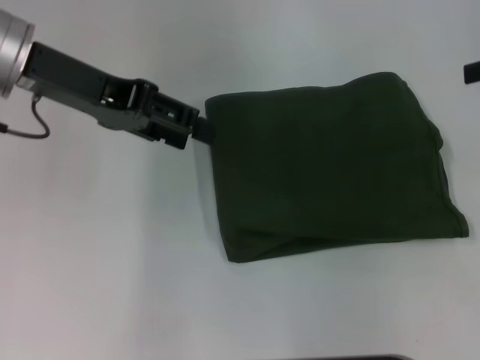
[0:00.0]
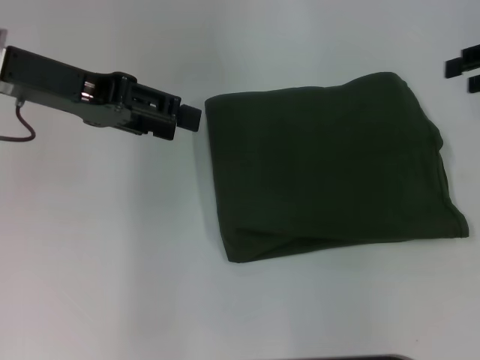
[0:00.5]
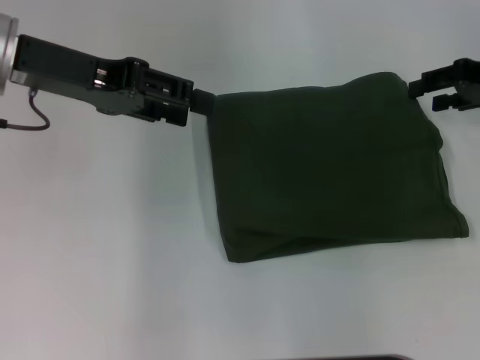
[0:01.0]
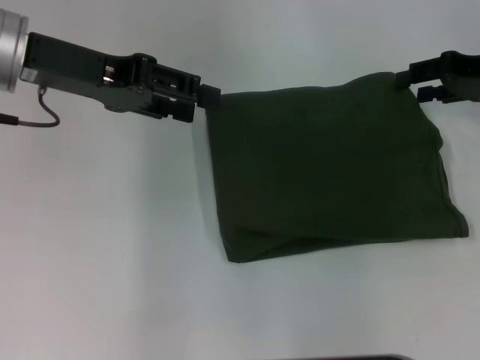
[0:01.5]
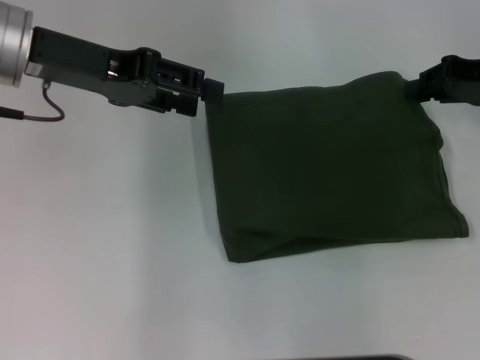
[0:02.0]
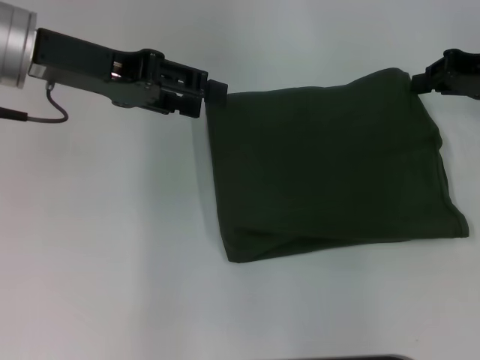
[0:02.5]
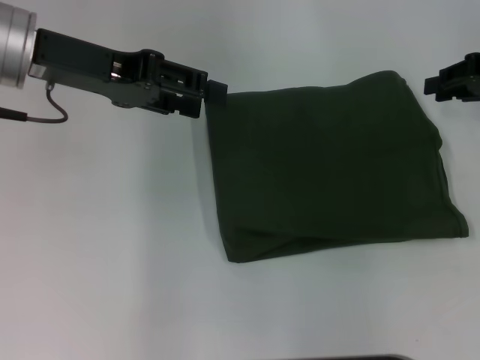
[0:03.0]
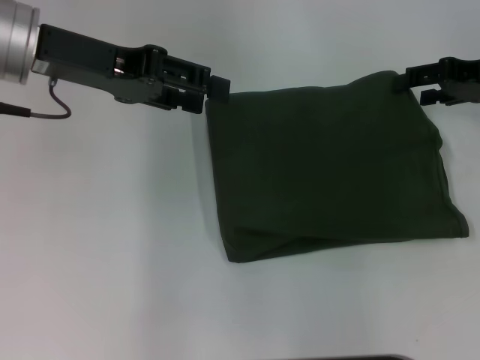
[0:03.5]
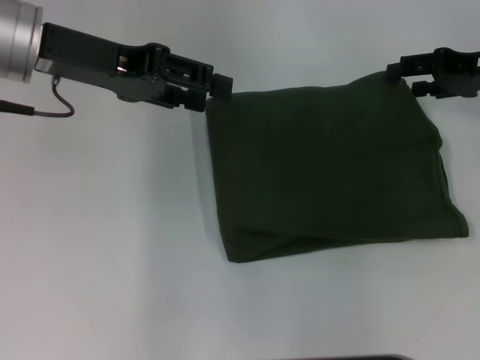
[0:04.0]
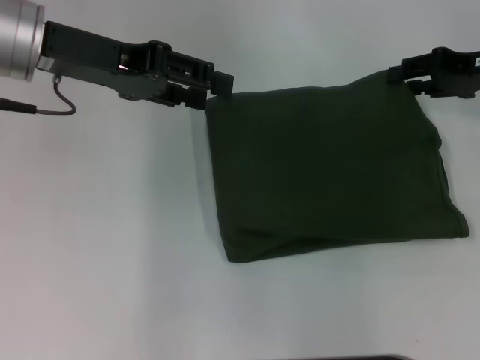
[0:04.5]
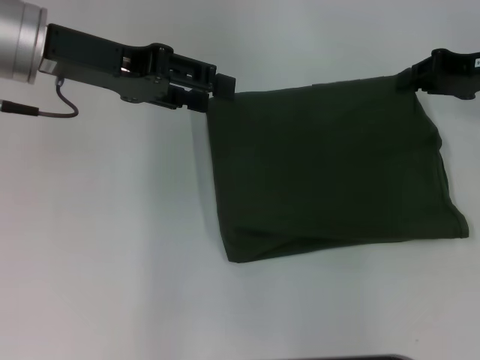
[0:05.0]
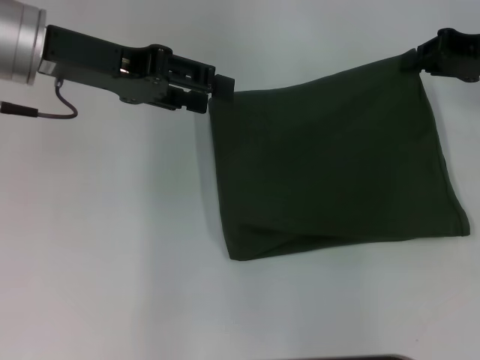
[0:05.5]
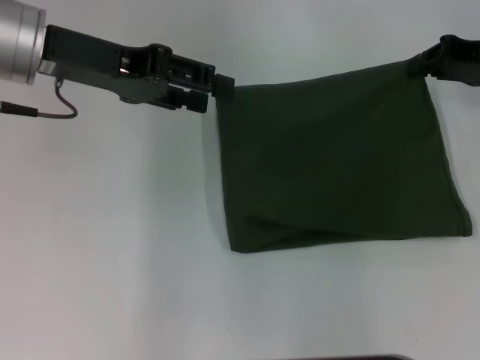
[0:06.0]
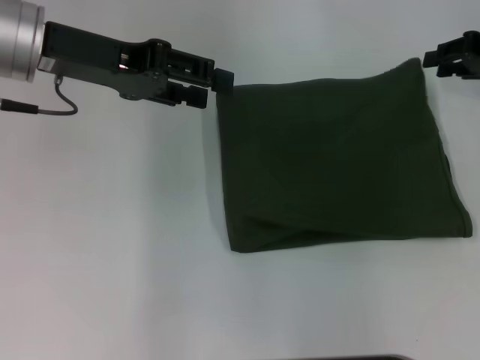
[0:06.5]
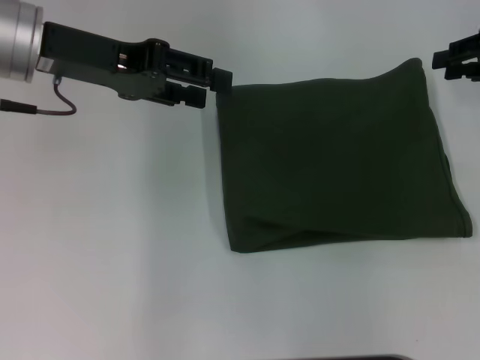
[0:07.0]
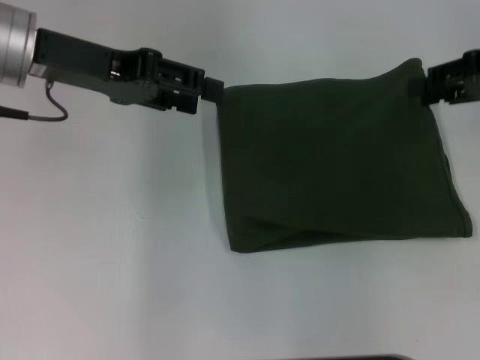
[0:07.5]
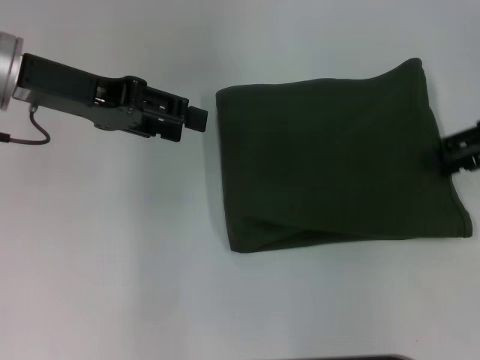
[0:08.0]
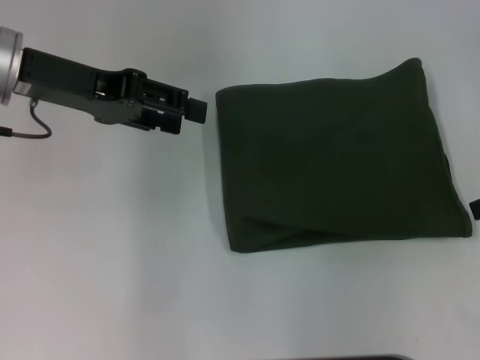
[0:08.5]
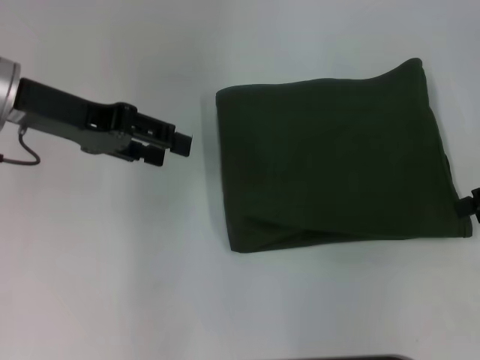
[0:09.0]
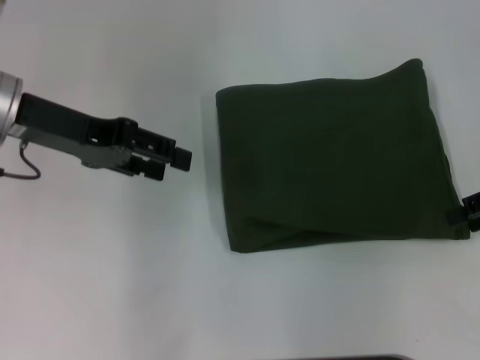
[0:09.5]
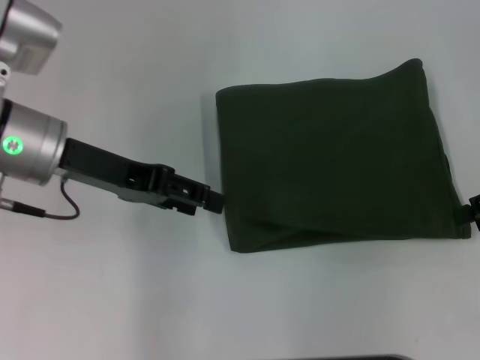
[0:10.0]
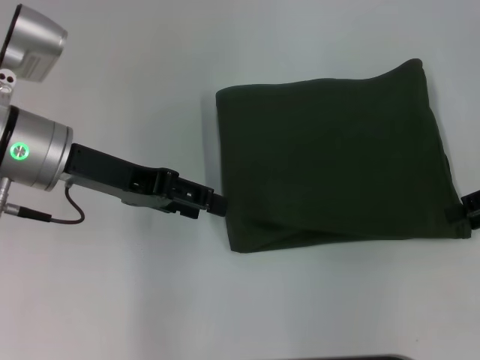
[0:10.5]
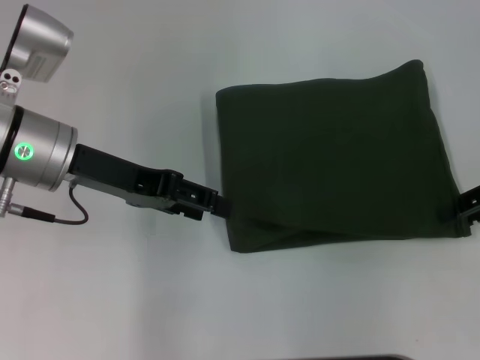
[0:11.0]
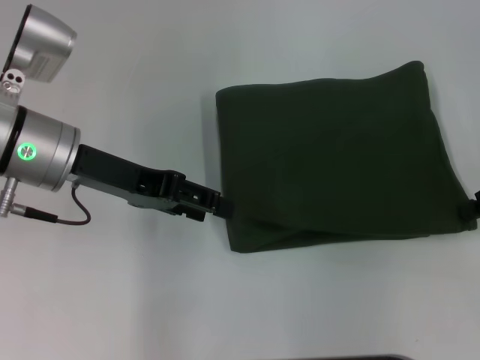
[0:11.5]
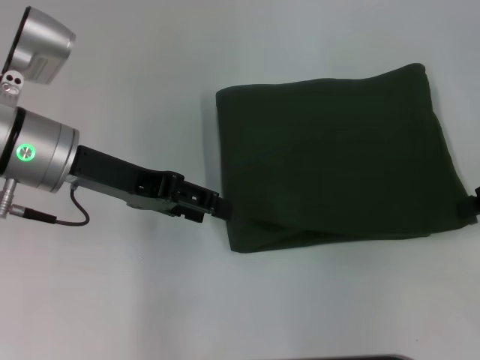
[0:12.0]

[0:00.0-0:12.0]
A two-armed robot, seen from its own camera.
Step, 0:00.0 to 0:02.5: Fold the clothes with your left hand.
0:00.0 to 0:02.0: The right gripper moves downward and to the left, about 10 cm.
0:02.0 to 0:04.0: The right gripper opens.
0:04.0 to 0:06.0: The right gripper closes.
0:06.0 to 0:08.0: The right gripper heads backward, covering some 5 cm, and opens up.
0:08.0 to 0:10.0: The left gripper moves about 5 cm.
0:10.0 to 0:12.0: The right gripper closes up.

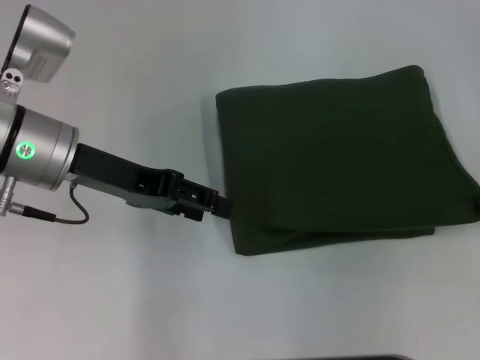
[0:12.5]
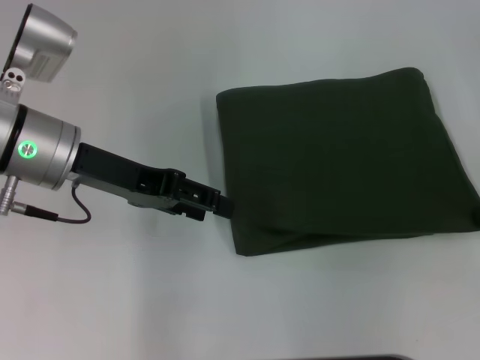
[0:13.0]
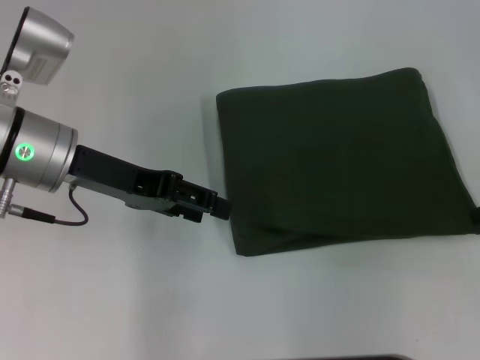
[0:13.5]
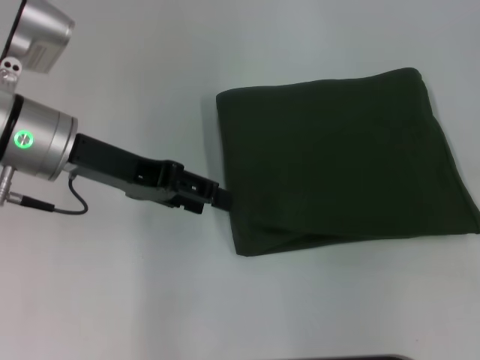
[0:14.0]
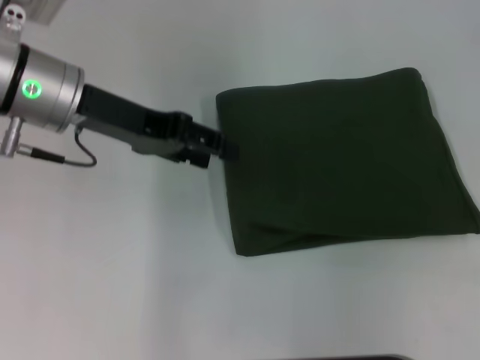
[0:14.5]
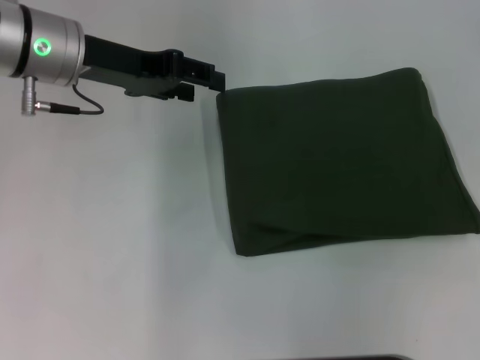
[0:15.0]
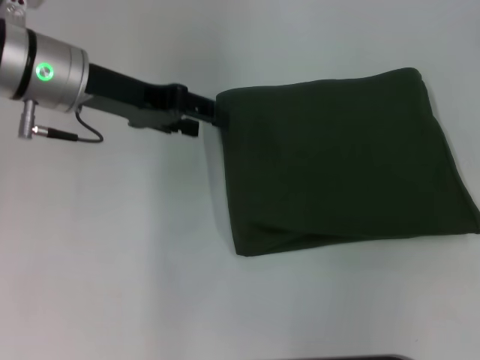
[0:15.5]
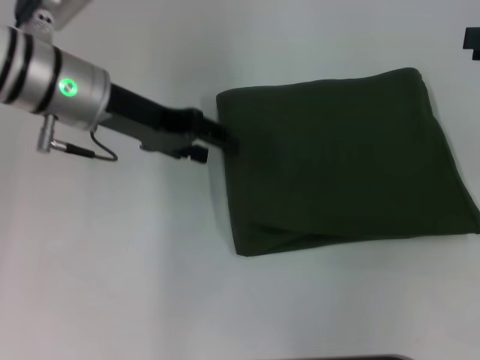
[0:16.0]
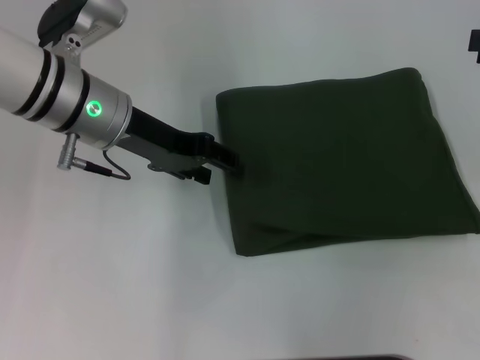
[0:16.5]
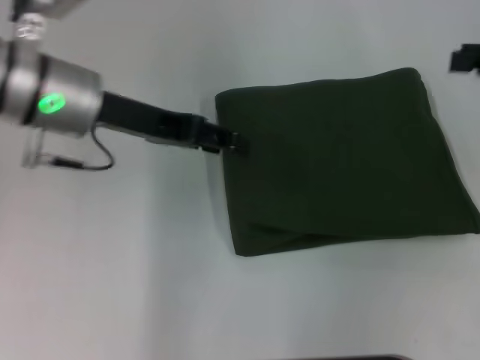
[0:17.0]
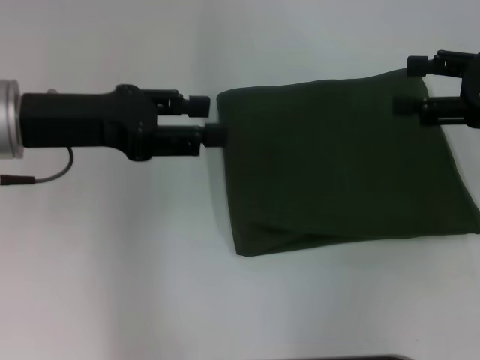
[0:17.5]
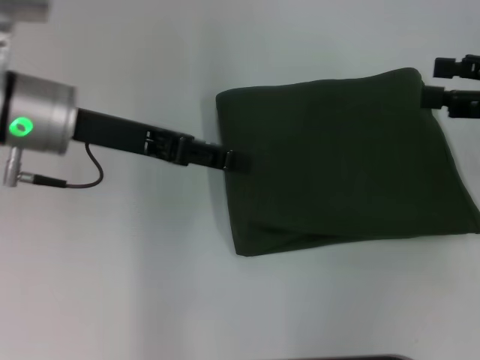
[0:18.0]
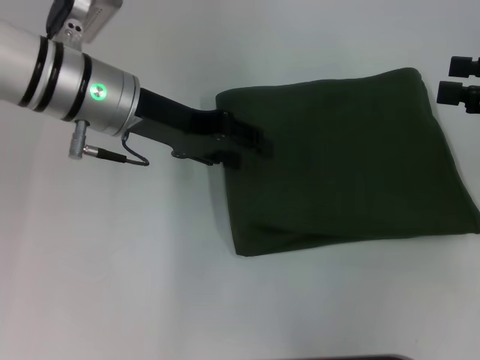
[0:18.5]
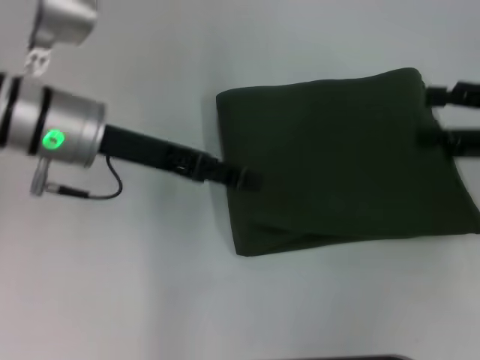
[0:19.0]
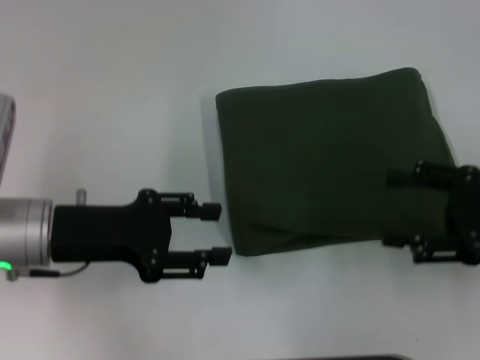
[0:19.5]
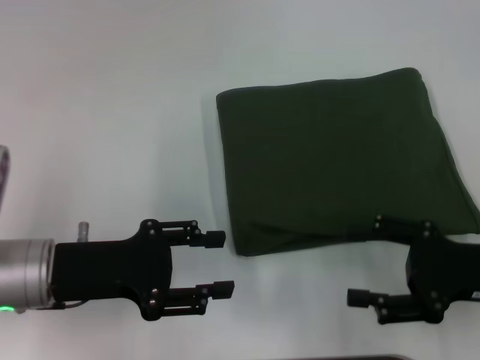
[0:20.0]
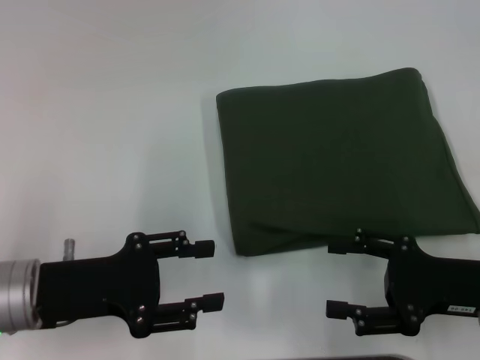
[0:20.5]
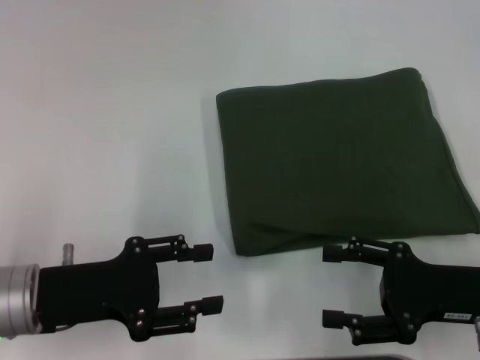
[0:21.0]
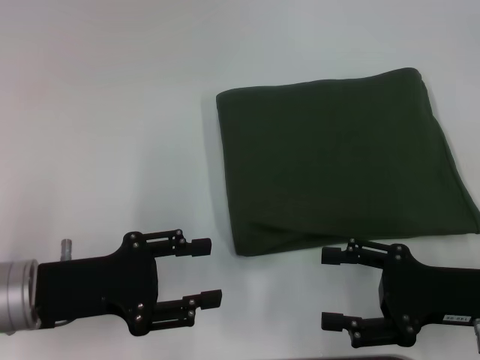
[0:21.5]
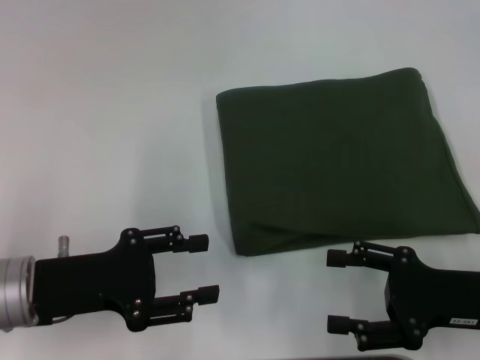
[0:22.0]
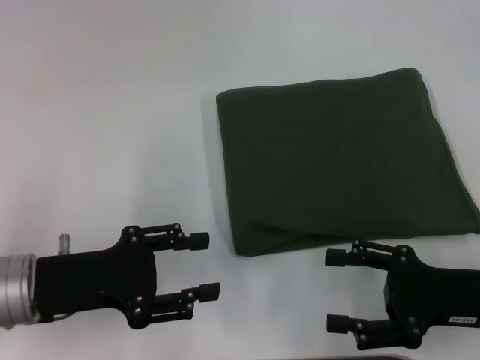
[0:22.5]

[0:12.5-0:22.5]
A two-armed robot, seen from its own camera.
0:12.5 to 0:14.5: The right gripper is displaced upward by roughly 10 cm, and opens up.
0:14.5 to 0:16.5: There are only small adjustments of the grippers.
0:16.5 to 0:18.5: The right gripper ends up about 5 cm from where it was. The left gripper reaches about 5 cm to the left, then returns.
0:18.5 to 0:20.5: The right gripper goes approximately 20 cm downward, backward and to the left. The left gripper shifts approximately 20 cm backward, to the left and downward.
0:20.5 to 0:22.5: The two grippers keep their place.

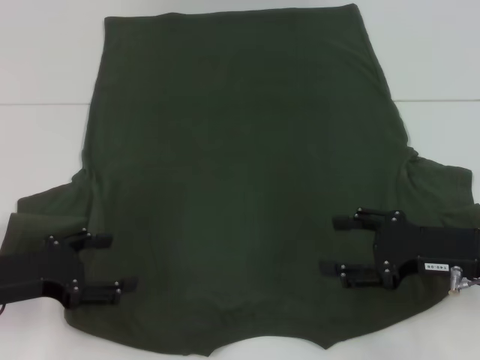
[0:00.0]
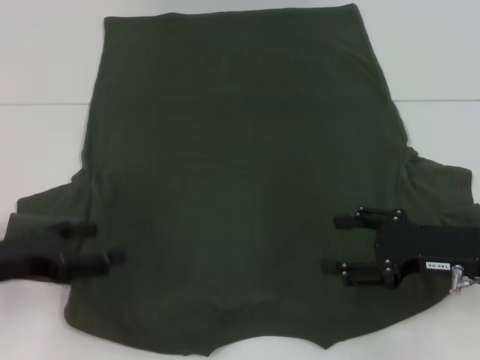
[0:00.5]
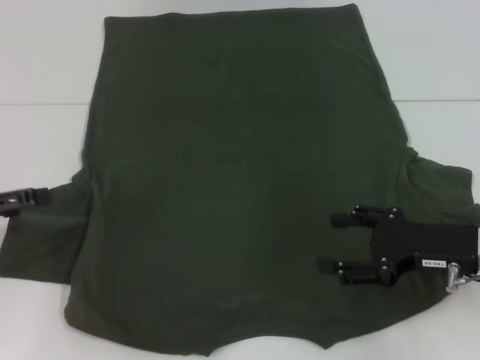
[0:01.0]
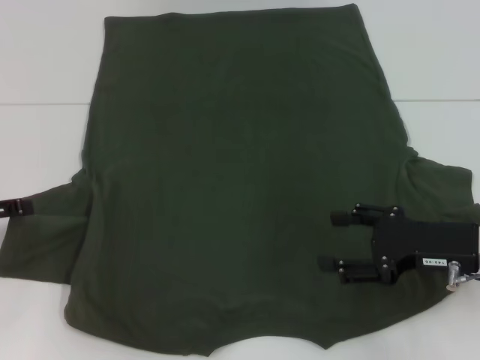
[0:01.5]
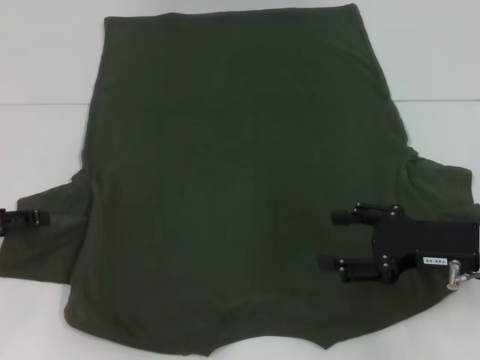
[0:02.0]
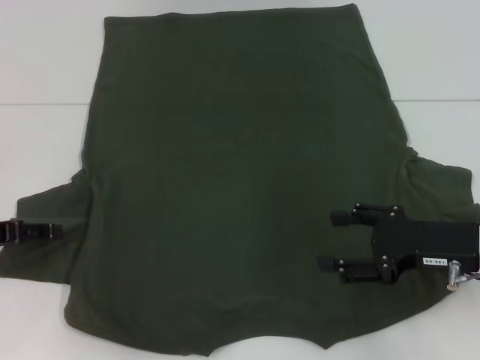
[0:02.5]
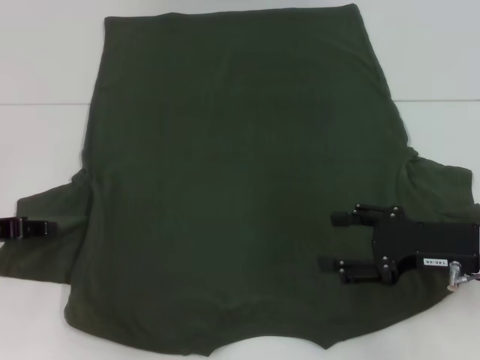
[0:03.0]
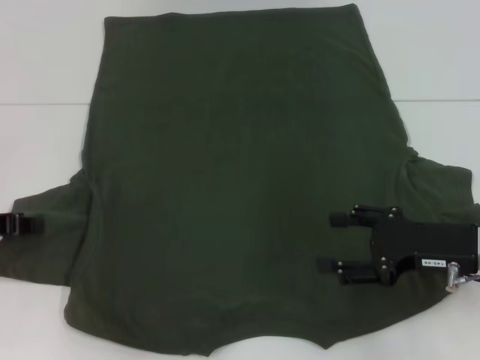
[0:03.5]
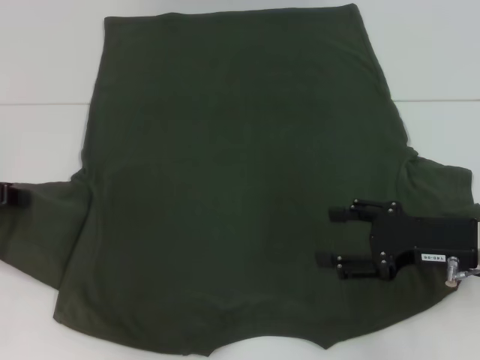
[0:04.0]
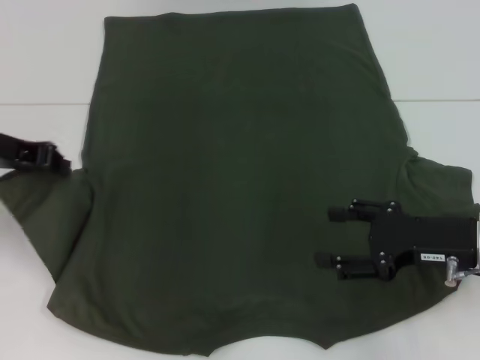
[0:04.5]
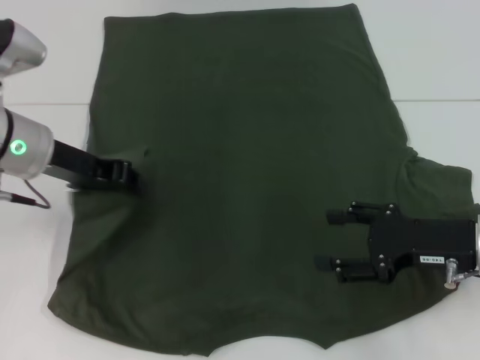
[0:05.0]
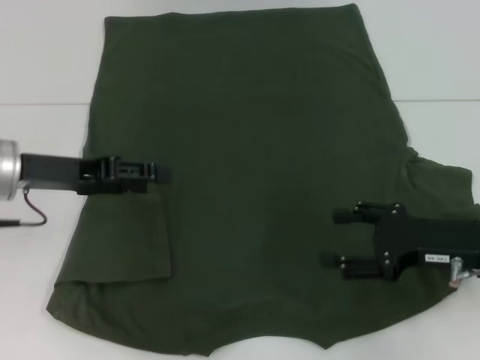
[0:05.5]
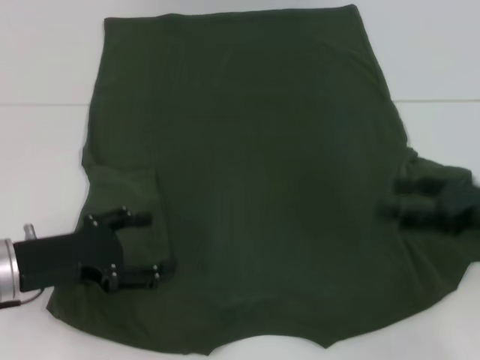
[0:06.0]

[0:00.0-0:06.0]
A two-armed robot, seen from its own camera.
Step, 0:00.0 to 0:05.0: Fold the bottom left sleeve with your left hand.
0:00.0 to 0:02.0: The left gripper shifts about 5 cm to the left.
0:02.0 to 0:04.0: The left gripper moves some 5 cm, and closes its fingers.
0:04.0 to 0:06.0: The left gripper travels to the right, backward and downward by some 15 cm, and opens its fingers; the right gripper is displaced to the right by approximately 5 cm.
